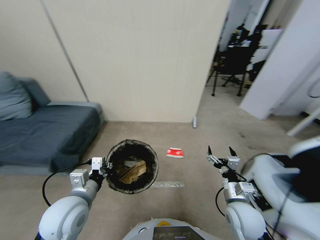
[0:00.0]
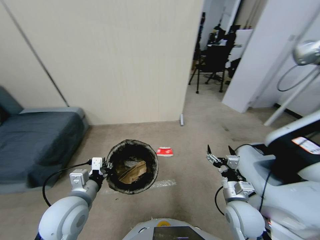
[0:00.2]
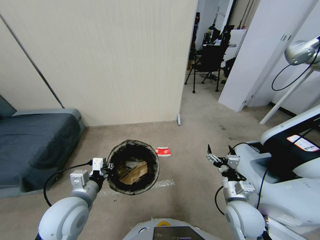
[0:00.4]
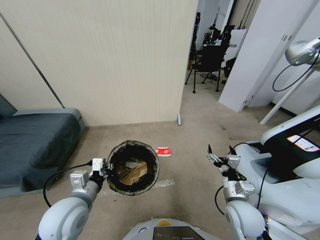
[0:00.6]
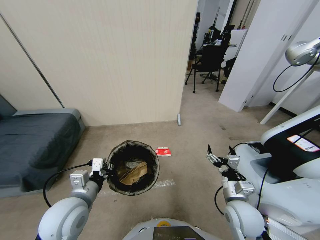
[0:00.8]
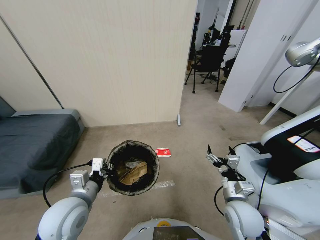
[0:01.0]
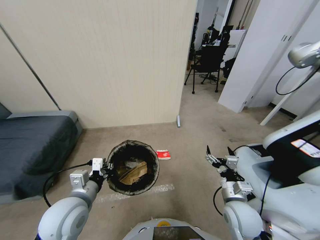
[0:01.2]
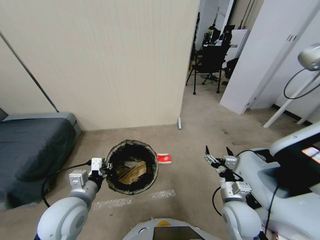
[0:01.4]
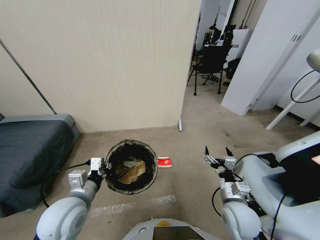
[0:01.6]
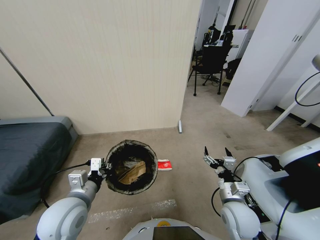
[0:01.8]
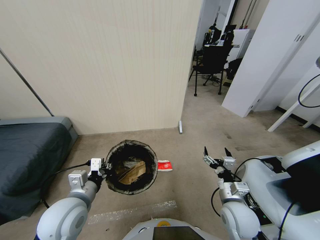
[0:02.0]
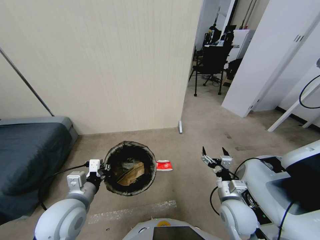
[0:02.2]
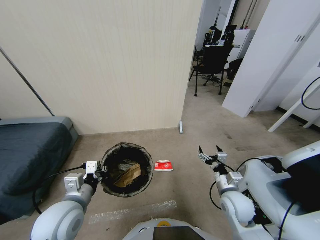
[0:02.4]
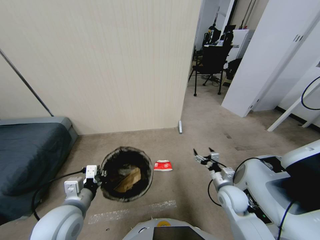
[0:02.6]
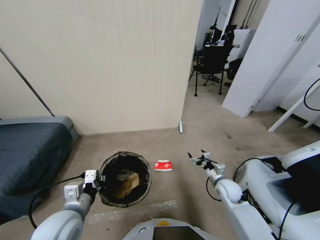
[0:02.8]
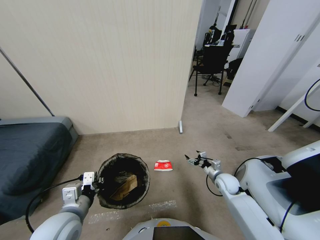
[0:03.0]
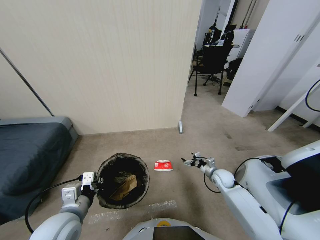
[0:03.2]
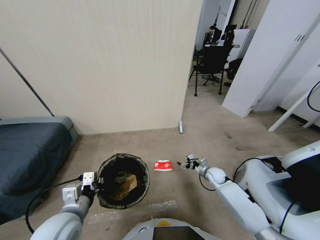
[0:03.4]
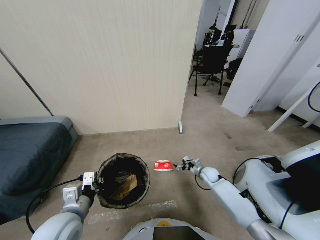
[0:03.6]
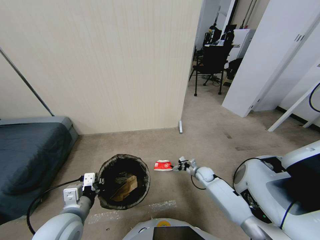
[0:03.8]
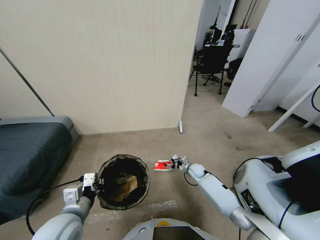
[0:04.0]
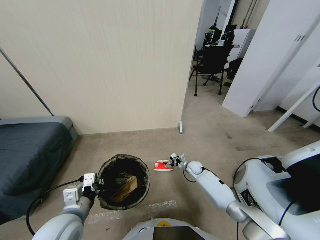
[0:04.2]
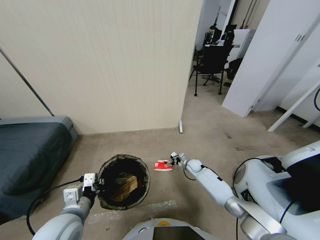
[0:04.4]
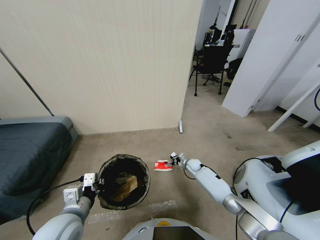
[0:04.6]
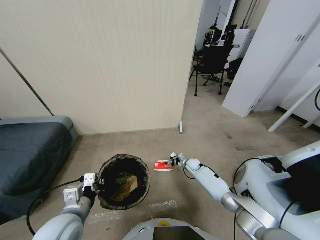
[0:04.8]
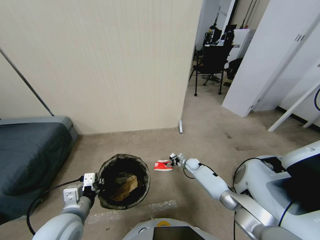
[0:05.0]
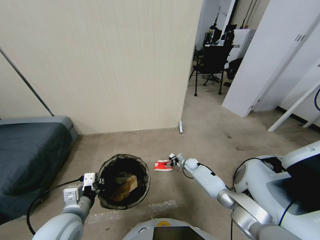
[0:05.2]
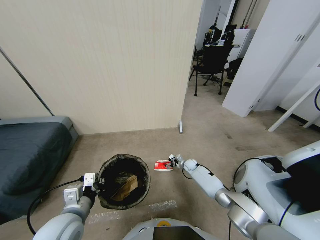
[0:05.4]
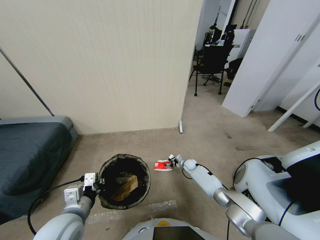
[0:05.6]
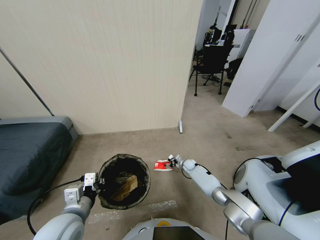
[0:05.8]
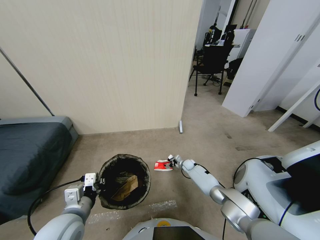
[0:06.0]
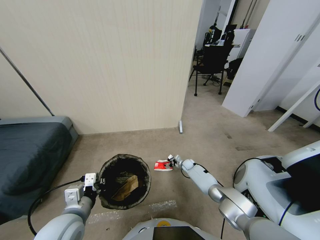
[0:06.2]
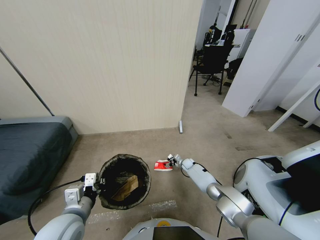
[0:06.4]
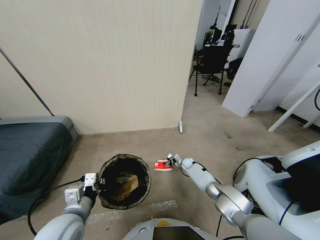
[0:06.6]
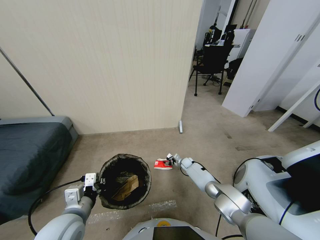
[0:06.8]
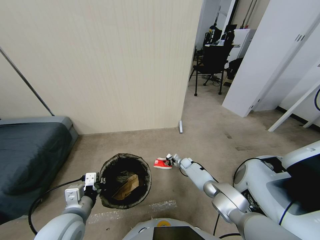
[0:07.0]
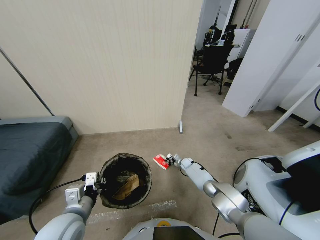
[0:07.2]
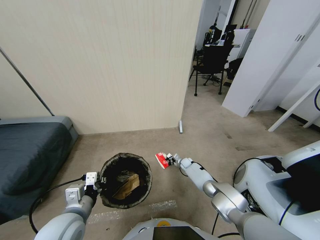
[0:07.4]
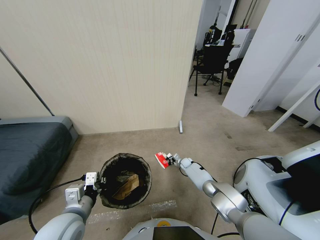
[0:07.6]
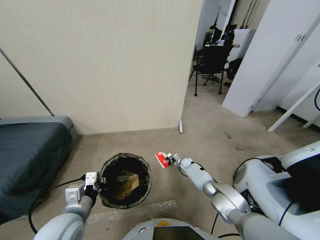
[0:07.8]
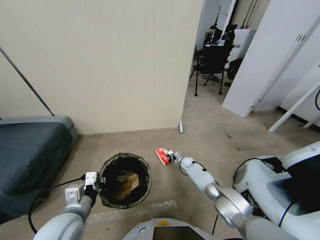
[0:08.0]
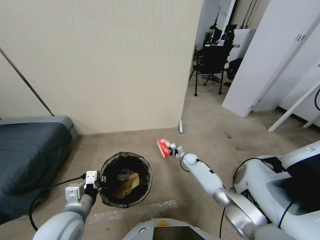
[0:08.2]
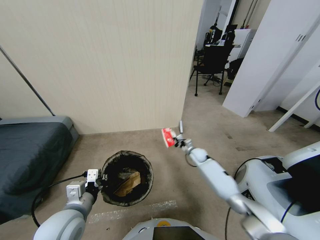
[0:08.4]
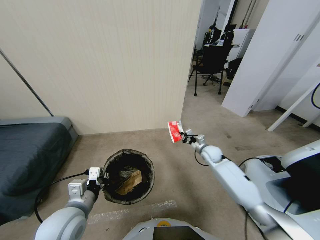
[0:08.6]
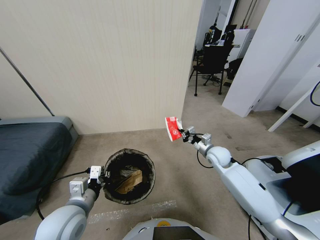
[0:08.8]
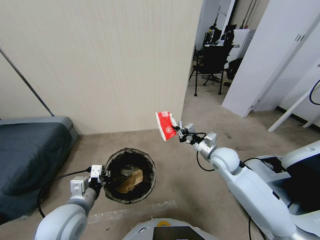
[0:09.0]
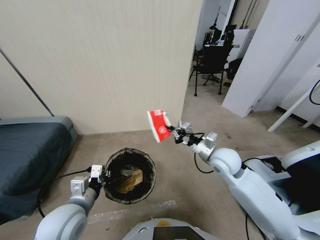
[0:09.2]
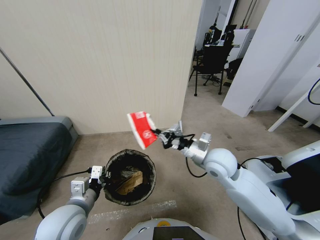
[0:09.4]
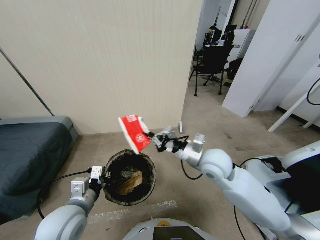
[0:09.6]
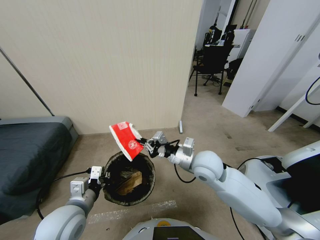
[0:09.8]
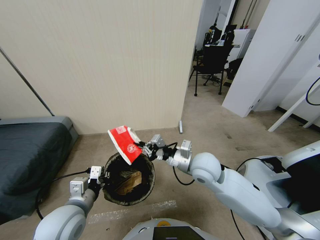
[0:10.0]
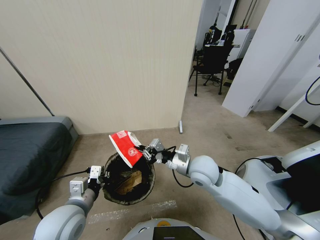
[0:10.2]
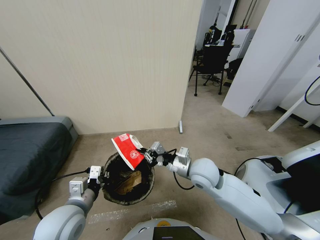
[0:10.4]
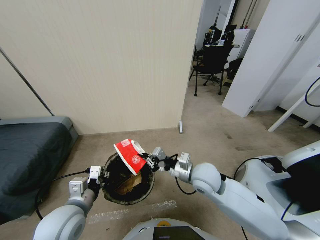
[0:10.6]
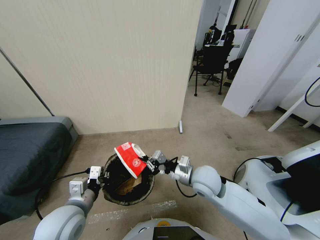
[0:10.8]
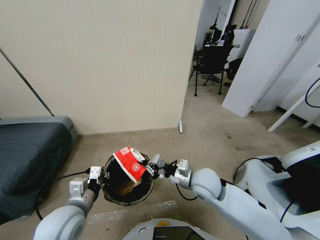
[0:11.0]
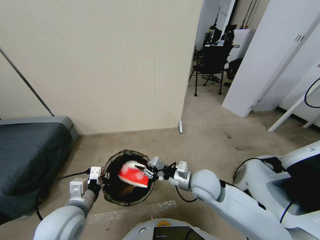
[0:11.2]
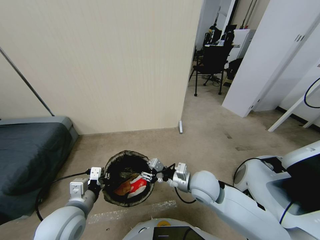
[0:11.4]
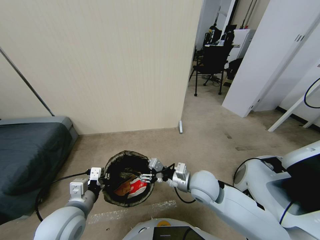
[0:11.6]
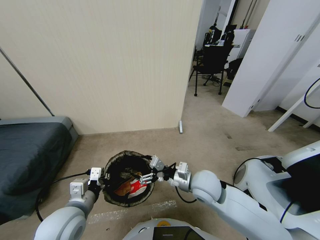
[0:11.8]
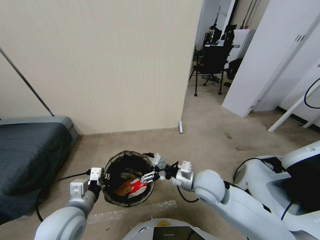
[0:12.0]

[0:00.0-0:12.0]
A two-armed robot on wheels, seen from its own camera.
Task of the whole recording: Pick up the trash bin, then pick up the garbage from the floor and place it into the trash bin.
0:01.6 to 0:03.0: The right gripper travels forward, downward and to the right by roughly 20 cm.
0:03.0 to 0:04.4: The right gripper moves forward, to the left and downward, approximately 20 cm.
0:04.4 to 0:06.0: The right gripper moves downward, about 5 cm.
0:06.0 to 0:07.6: The right gripper closes.
0:07.6 to 0:09.0: The right gripper heads upward and backward, covering about 40 cm.
0:09.0 to 0:10.4: The right gripper moves to the left, approximately 10 cm.
0:10.4 to 0:12.0: The right gripper opens.

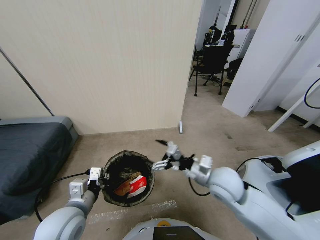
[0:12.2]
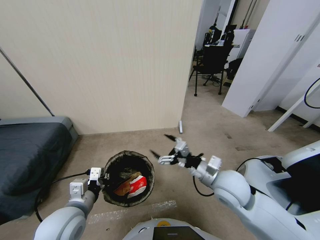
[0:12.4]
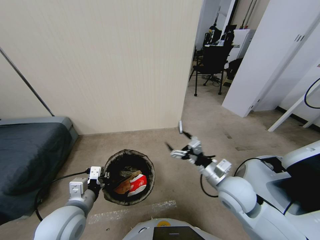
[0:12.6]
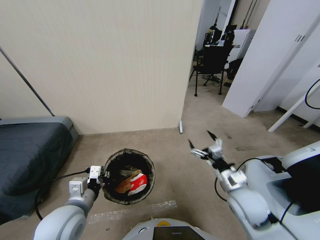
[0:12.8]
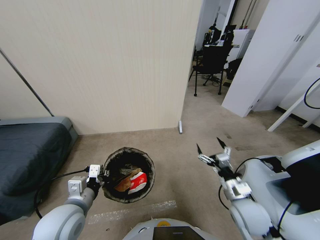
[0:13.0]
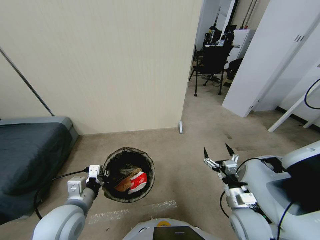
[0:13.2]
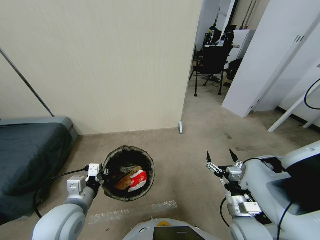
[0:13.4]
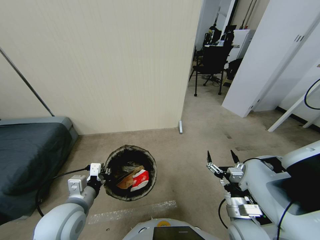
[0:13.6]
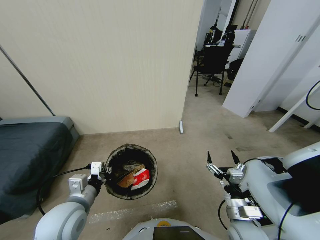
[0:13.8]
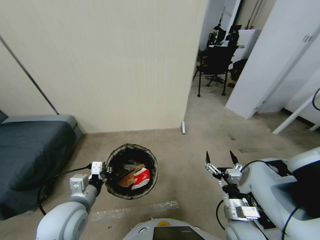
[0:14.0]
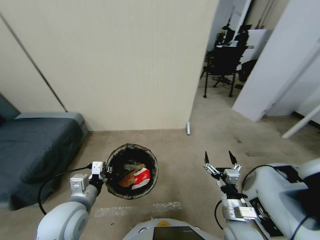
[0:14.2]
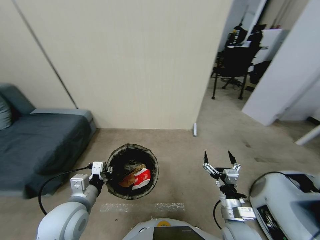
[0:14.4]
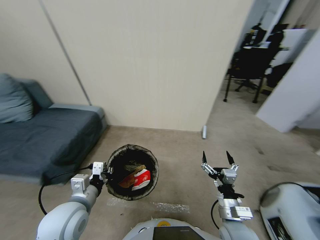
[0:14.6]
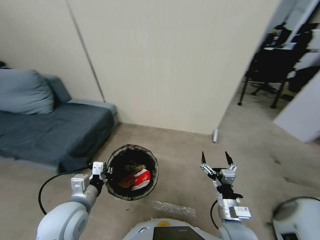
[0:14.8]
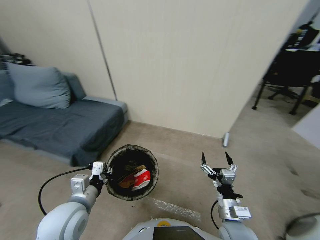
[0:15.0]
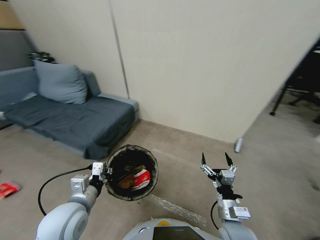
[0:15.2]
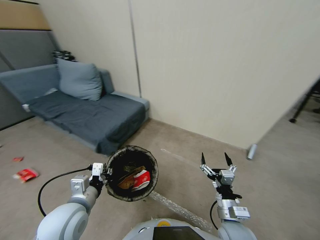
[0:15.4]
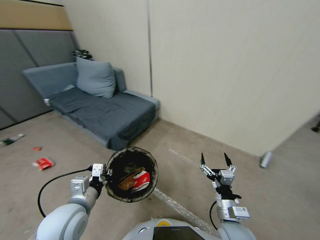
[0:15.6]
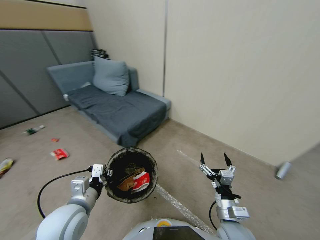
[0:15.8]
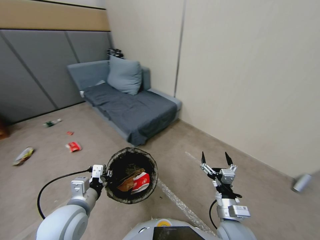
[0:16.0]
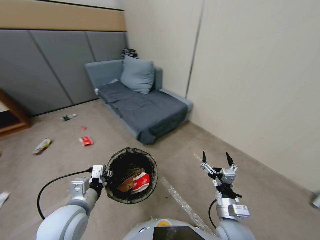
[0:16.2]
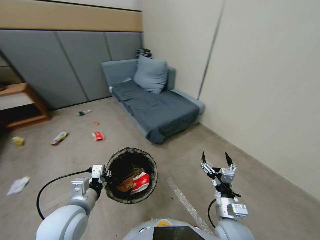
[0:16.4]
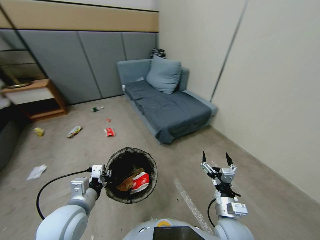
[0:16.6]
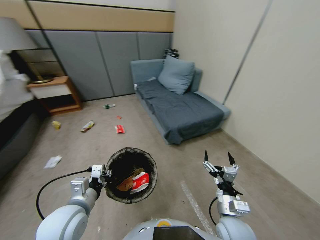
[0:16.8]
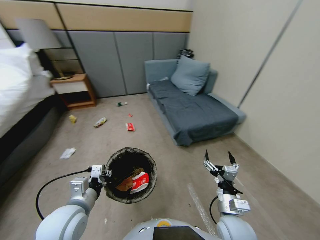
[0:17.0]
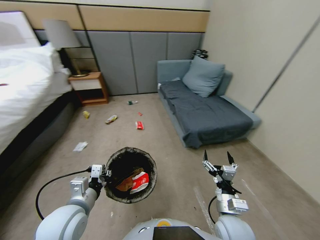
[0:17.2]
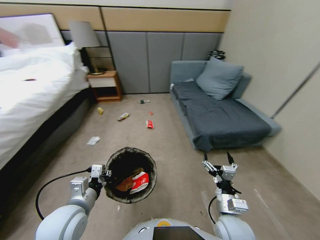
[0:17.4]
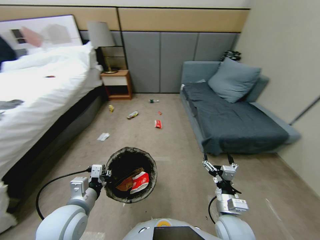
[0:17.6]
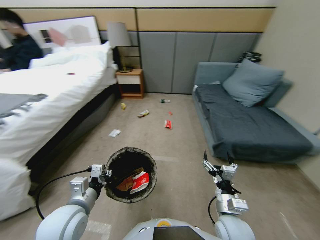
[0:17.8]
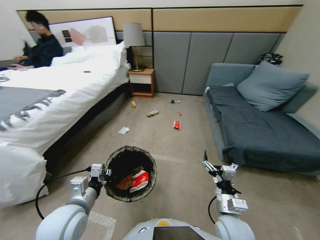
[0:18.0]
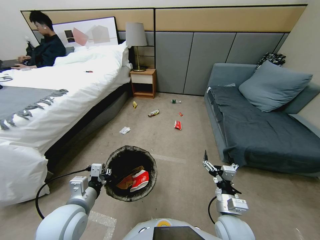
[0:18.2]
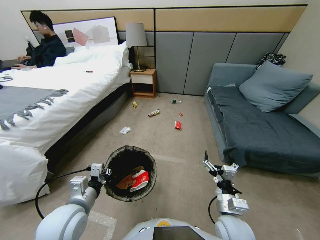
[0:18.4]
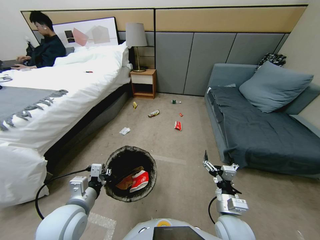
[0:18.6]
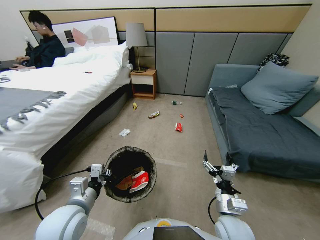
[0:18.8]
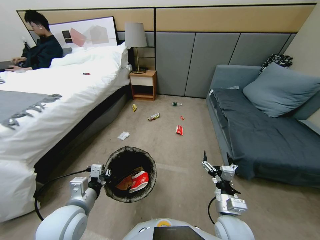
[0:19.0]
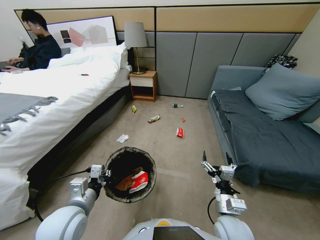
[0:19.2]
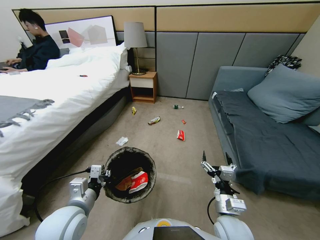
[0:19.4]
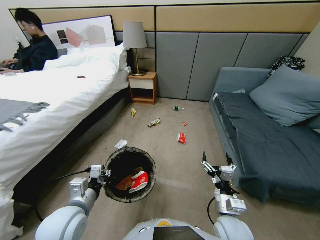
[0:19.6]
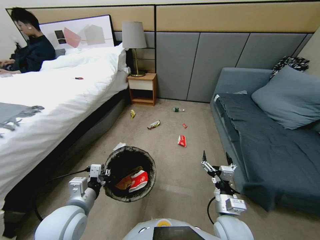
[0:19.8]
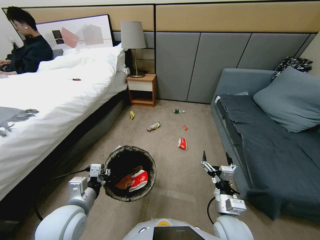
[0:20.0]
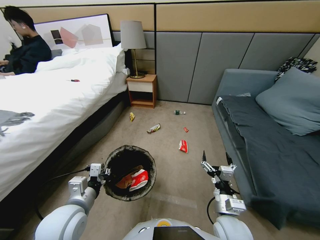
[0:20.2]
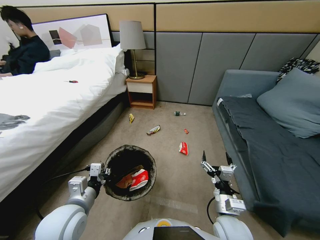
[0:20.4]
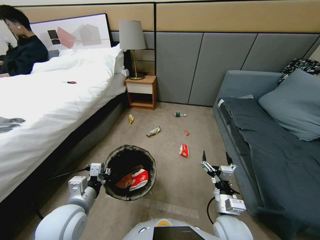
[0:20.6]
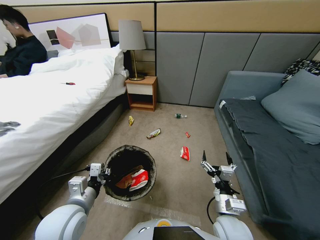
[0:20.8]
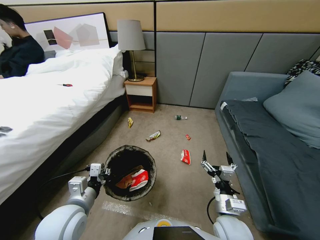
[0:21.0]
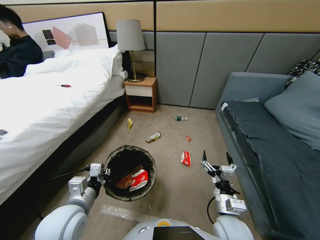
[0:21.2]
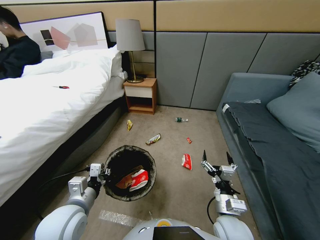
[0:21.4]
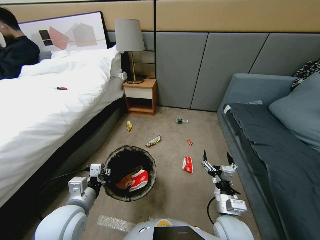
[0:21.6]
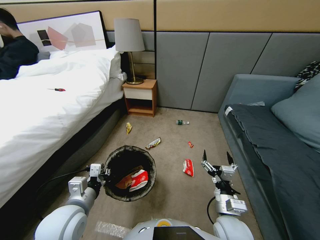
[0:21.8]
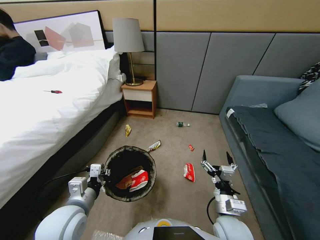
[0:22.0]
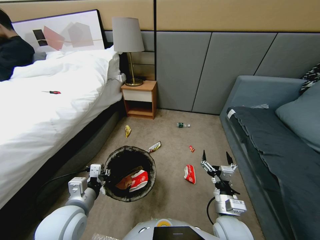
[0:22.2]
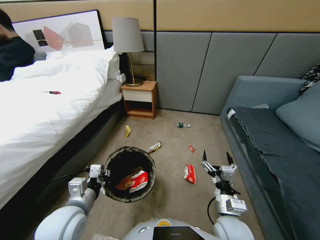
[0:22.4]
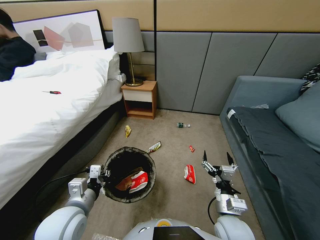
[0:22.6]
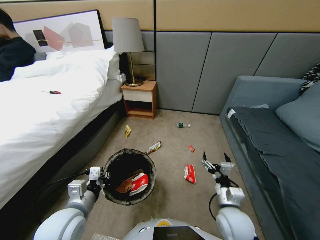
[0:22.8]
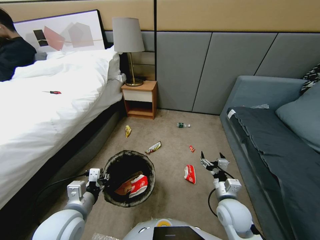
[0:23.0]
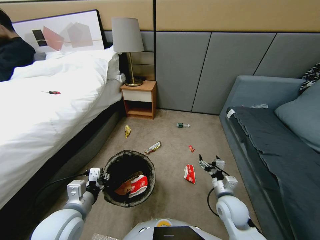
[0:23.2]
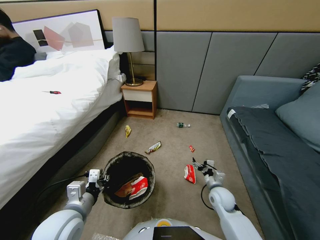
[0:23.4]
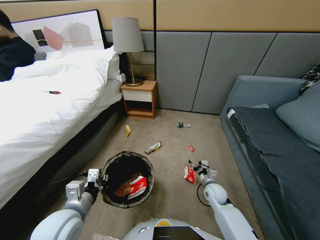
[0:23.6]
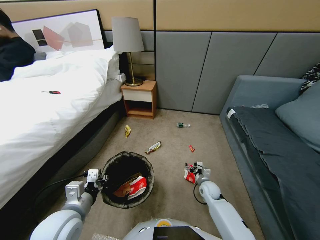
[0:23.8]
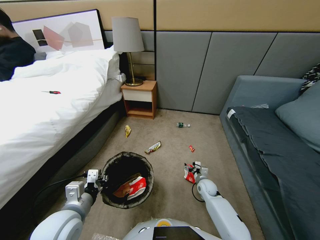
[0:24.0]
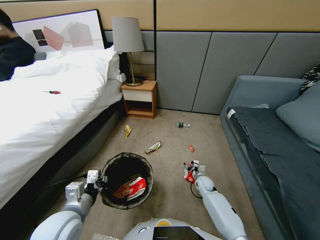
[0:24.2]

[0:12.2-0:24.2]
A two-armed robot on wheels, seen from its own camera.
Task of the whole recording: Pick up the trash bin, then pick up the garbage from the floor and place it into the trash bin.
0:12.2 to 0:13.8: The right gripper moves backward and downward, approximately 15 cm.
0:21.2 to 0:22.6: The grippers move only a little.
0:22.6 to 0:24.2: The right gripper travels downward and forward by roughly 30 cm.
